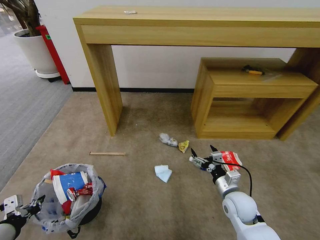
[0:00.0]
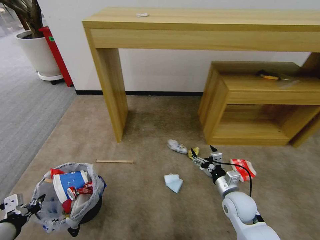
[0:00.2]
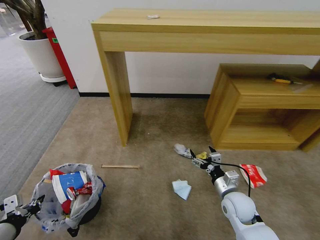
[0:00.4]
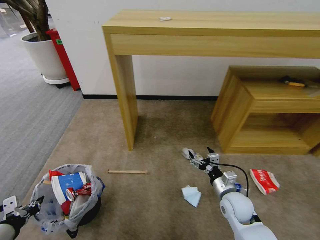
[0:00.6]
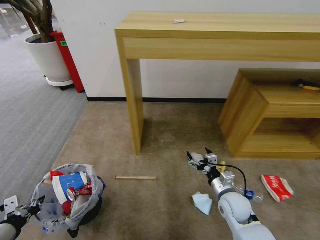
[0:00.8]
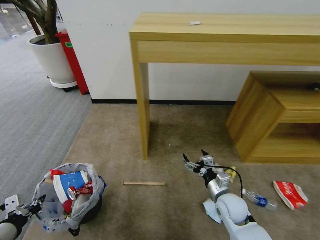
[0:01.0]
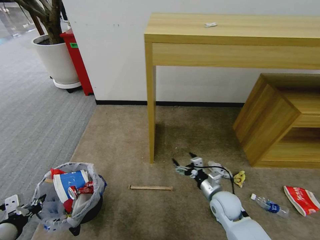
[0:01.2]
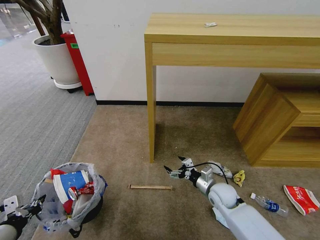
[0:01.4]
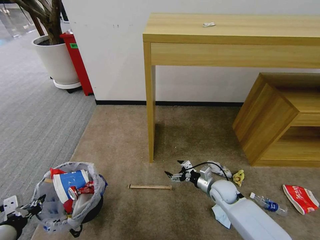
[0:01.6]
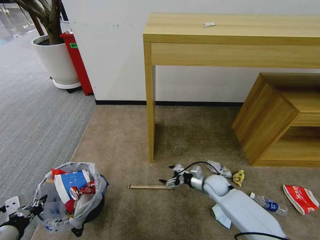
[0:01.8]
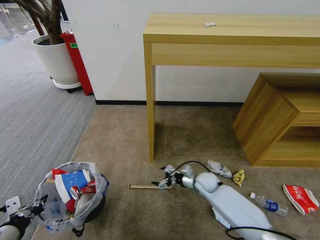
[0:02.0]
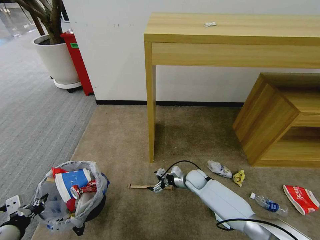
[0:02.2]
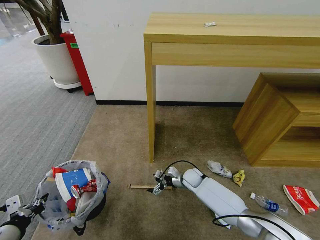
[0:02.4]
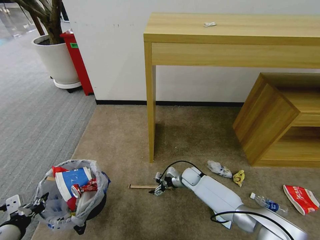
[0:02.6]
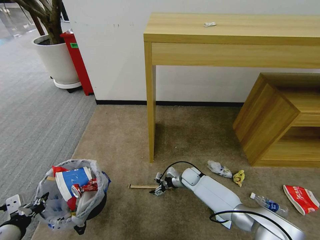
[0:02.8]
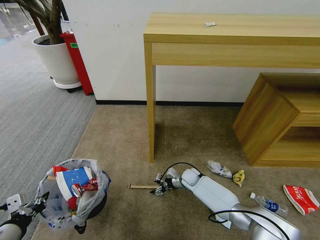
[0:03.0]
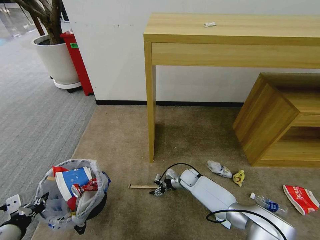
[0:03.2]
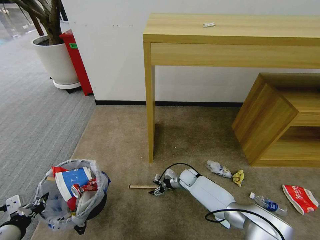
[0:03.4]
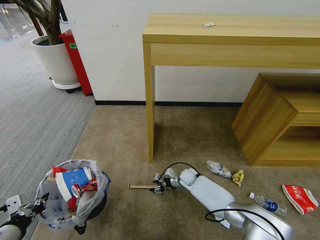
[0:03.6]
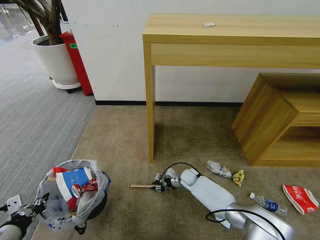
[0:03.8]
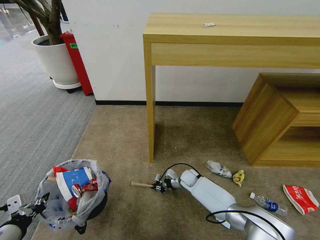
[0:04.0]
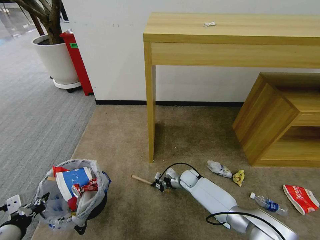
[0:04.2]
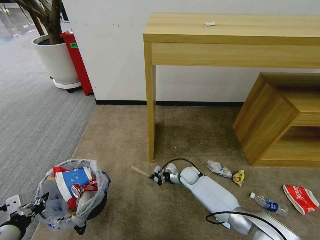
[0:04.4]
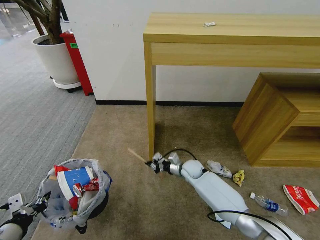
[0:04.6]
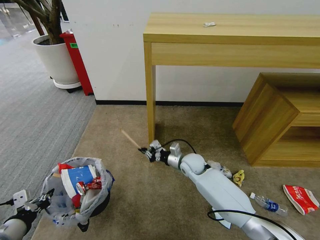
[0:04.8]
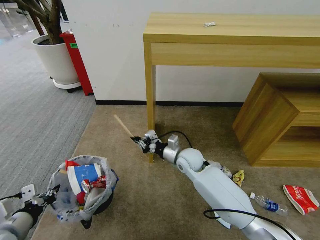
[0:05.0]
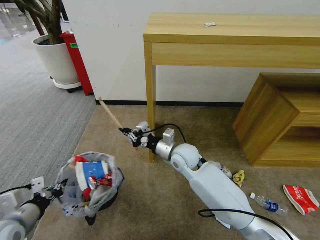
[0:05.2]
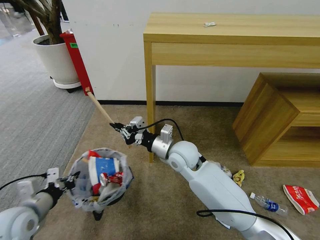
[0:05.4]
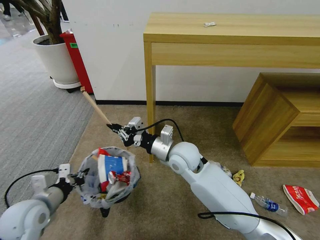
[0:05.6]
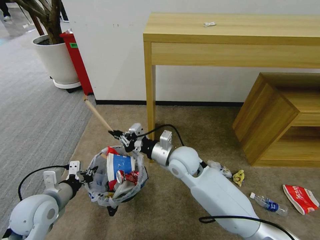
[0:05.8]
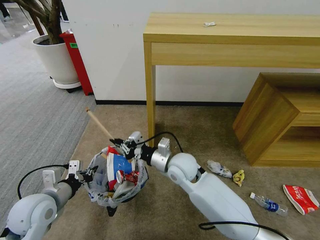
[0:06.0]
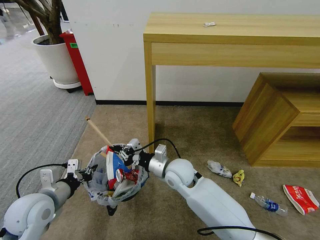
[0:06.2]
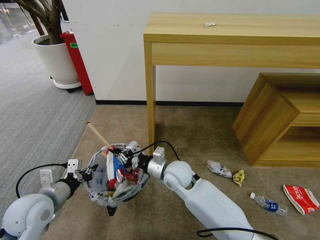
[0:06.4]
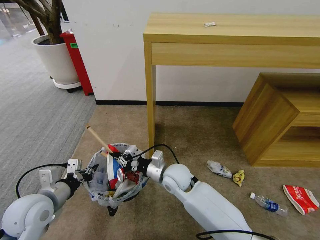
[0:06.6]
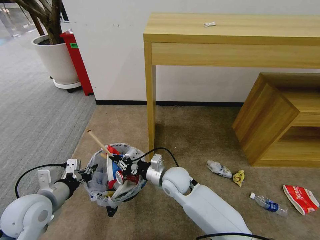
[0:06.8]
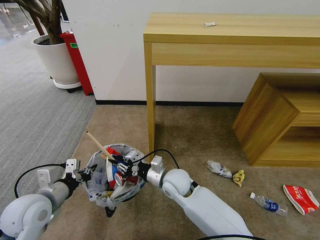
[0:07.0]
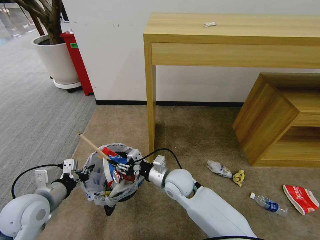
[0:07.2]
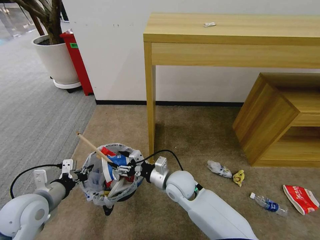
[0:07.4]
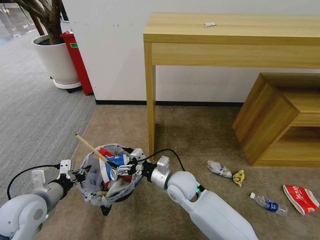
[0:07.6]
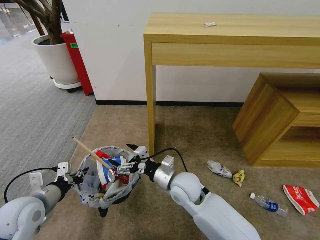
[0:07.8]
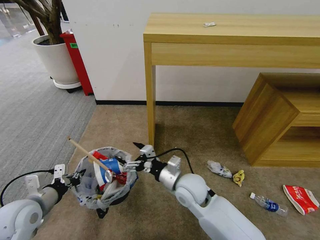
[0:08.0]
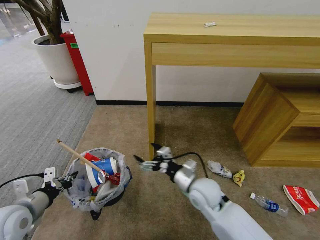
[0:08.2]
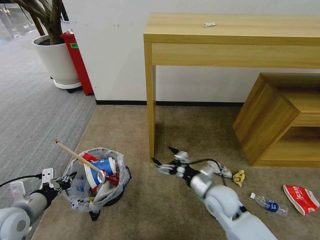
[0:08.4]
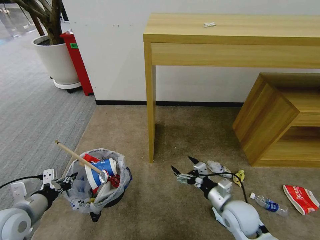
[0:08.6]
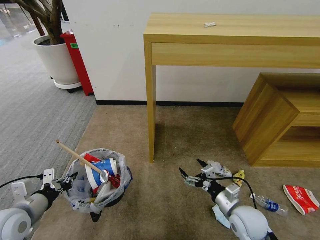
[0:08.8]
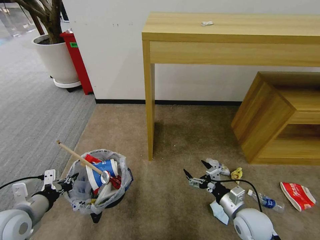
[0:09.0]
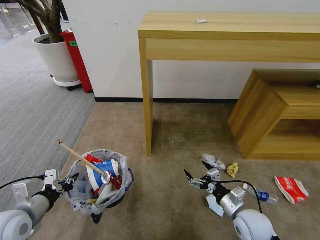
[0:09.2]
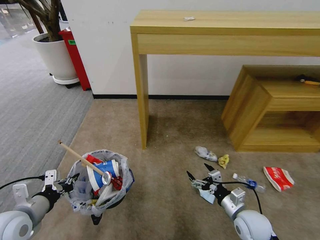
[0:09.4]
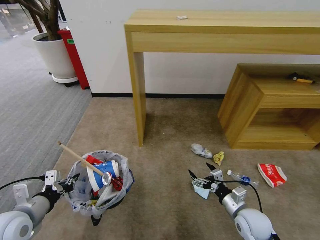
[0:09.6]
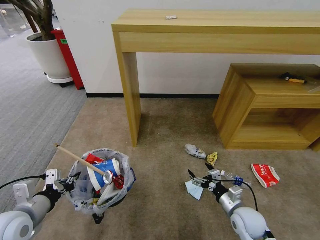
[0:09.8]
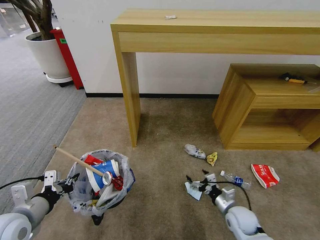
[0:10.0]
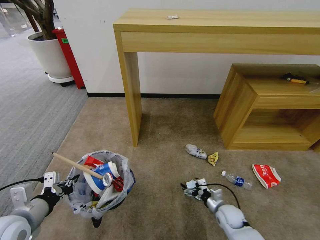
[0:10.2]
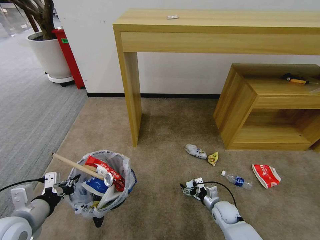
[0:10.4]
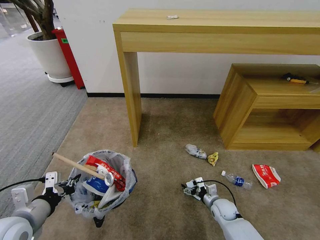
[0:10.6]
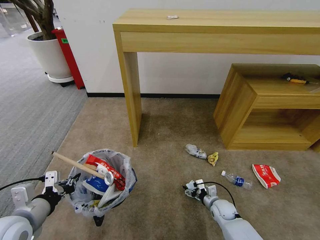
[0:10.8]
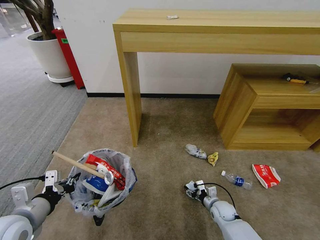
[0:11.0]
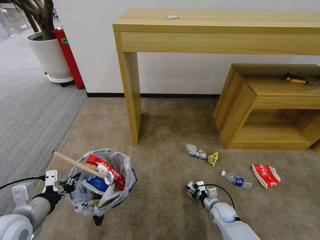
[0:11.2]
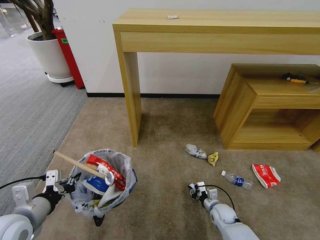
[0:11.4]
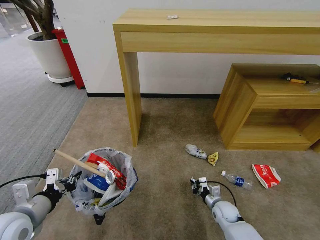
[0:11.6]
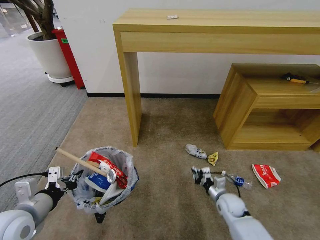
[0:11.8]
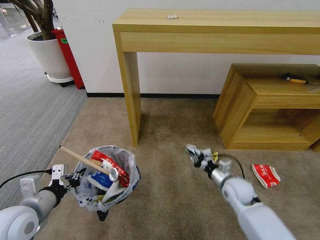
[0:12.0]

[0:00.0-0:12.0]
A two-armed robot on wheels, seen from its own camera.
Task of the whole recording: Pick up the trash bin and place the garbage on the floor into it.
0:00.0 to 0:01.6: The right gripper moves forward and downward, about 10 cm.
0:01.6 to 0:03.0: The right gripper moves to the left, forward and downward, about 15 cm.
0:03.0 to 0:04.4: The right gripper closes its fingers.
0:04.4 to 0:06.0: The left gripper goes roughly 15 cm forward and to the right, while the right gripper heads upward, covering roughly 25 cm.
0:06.0 to 0:07.6: The right gripper ends up some 5 cm from where it was, and opens.
0:07.6 to 0:09.0: The right gripper heads to the right and backward, covering about 25 cm.
0:09.0 to 0:10.4: The right gripper goes roughly 15 cm downward and forward.
0:10.4 to 0:12.0: The right gripper shifts approximately 15 cm upward, and closes its fingers.

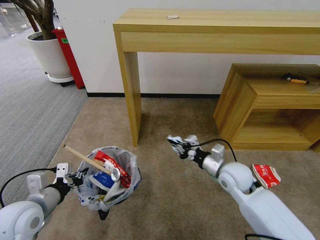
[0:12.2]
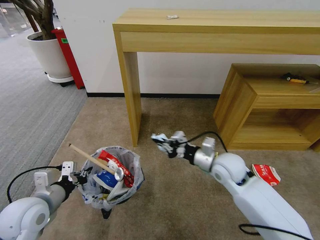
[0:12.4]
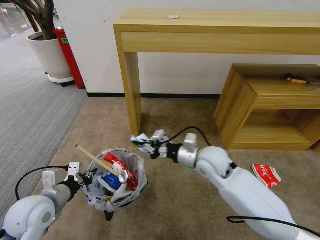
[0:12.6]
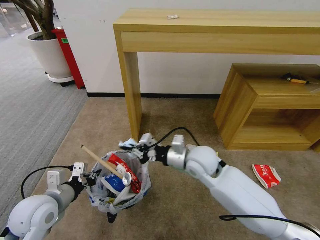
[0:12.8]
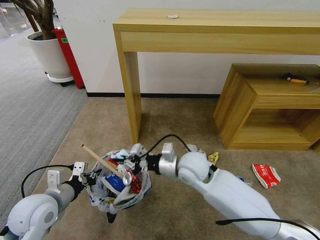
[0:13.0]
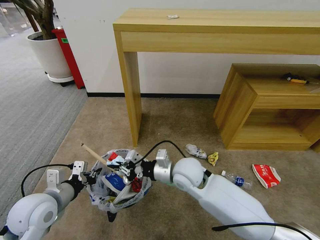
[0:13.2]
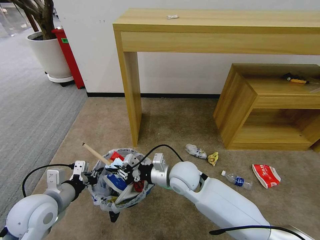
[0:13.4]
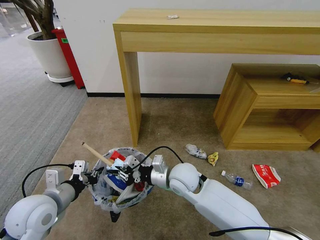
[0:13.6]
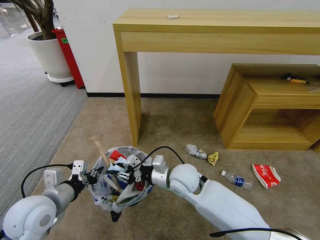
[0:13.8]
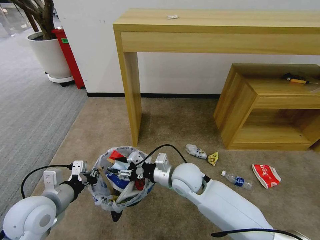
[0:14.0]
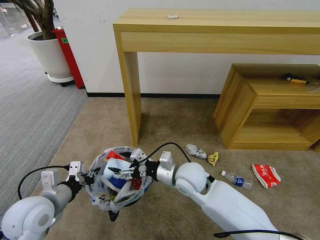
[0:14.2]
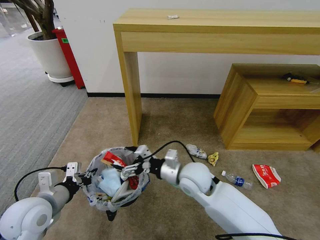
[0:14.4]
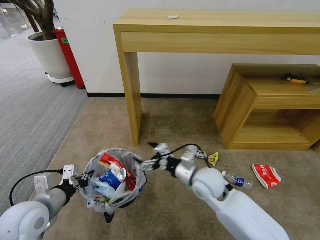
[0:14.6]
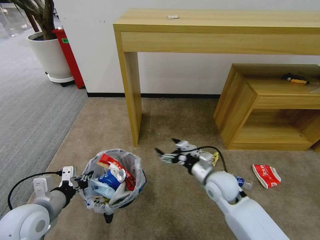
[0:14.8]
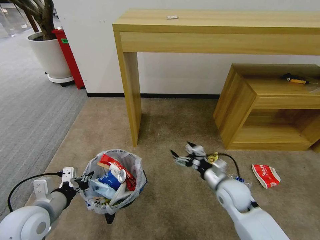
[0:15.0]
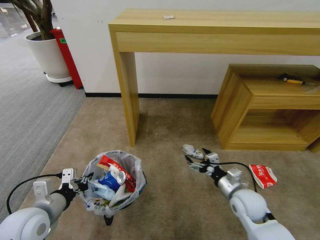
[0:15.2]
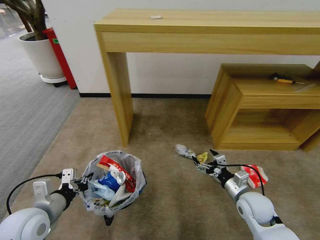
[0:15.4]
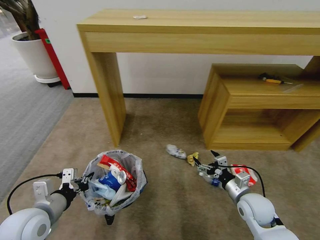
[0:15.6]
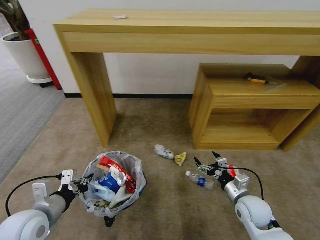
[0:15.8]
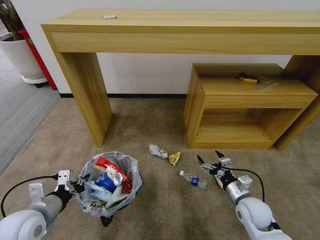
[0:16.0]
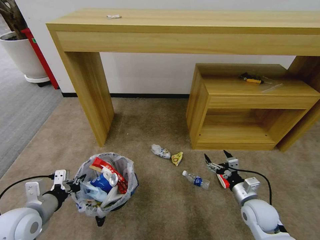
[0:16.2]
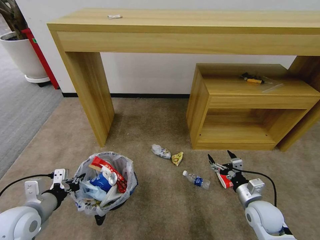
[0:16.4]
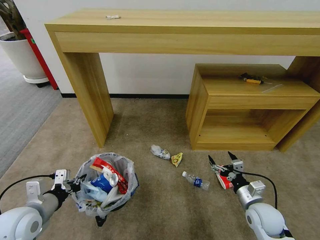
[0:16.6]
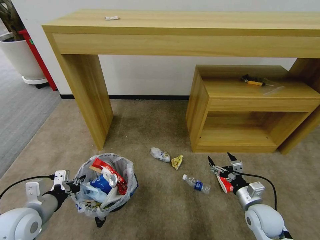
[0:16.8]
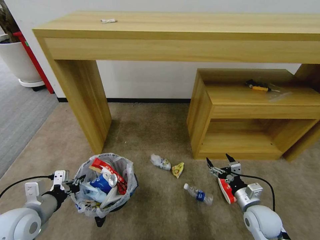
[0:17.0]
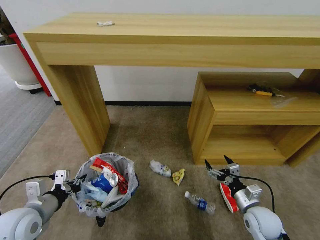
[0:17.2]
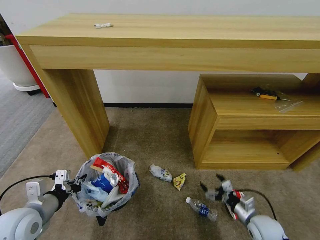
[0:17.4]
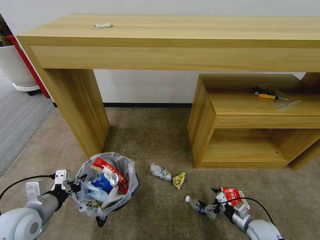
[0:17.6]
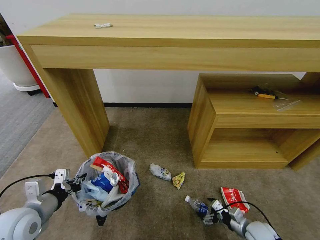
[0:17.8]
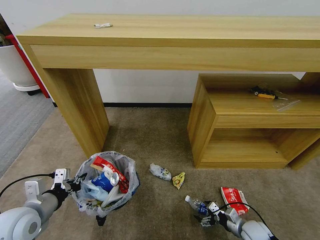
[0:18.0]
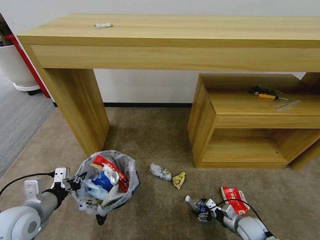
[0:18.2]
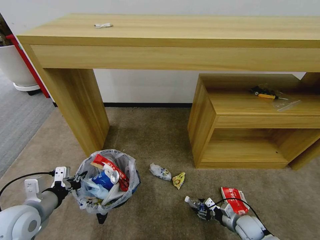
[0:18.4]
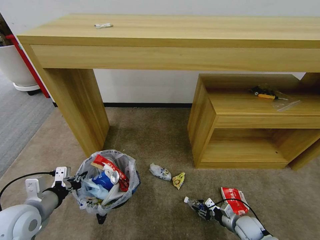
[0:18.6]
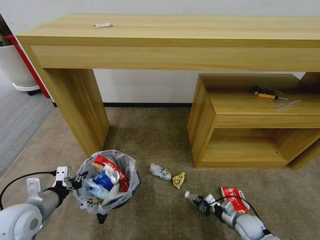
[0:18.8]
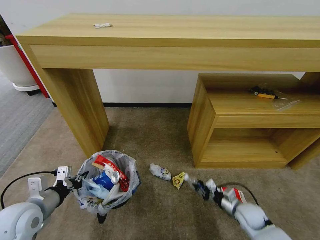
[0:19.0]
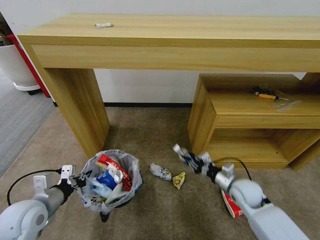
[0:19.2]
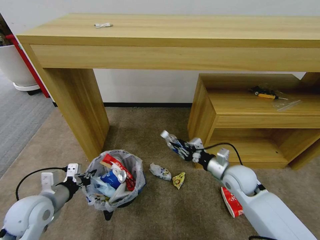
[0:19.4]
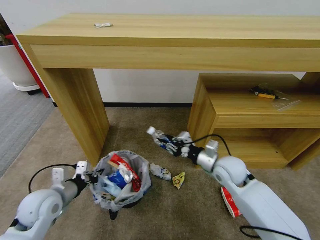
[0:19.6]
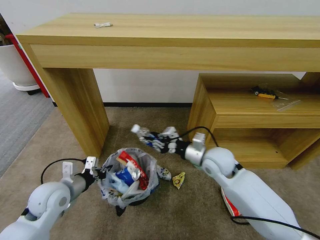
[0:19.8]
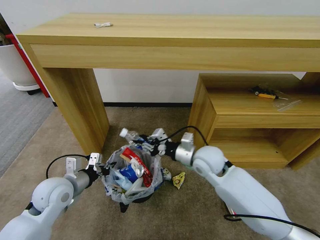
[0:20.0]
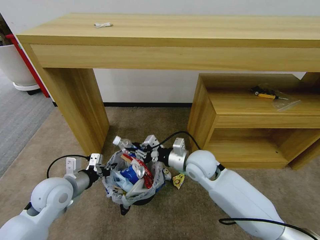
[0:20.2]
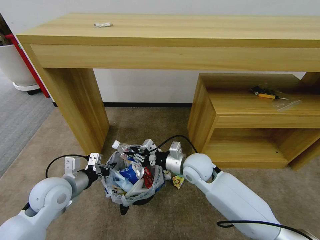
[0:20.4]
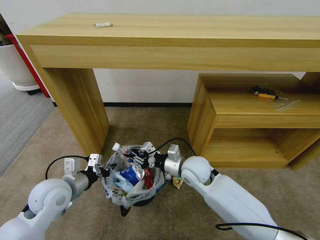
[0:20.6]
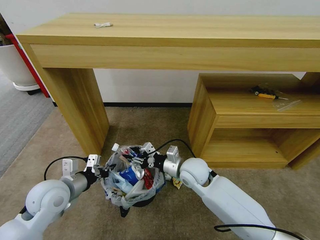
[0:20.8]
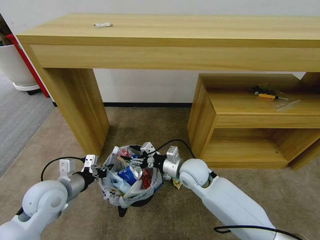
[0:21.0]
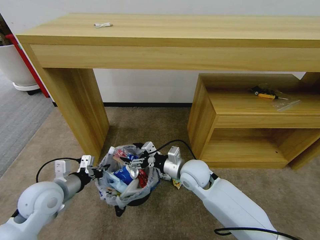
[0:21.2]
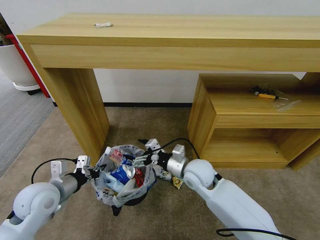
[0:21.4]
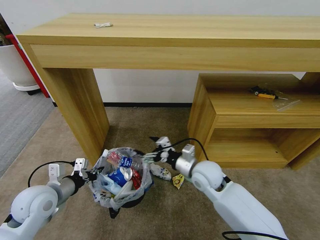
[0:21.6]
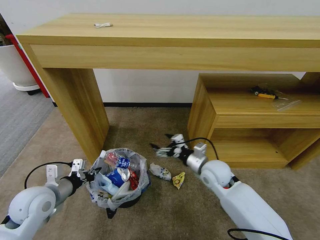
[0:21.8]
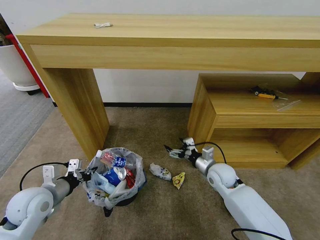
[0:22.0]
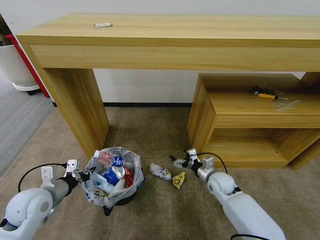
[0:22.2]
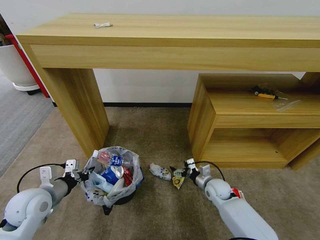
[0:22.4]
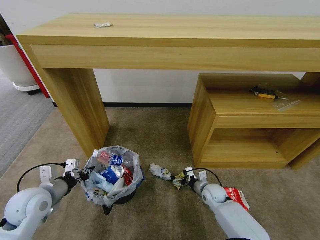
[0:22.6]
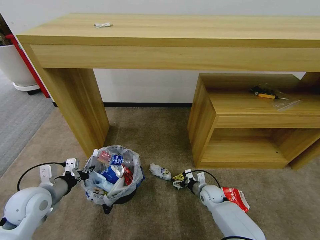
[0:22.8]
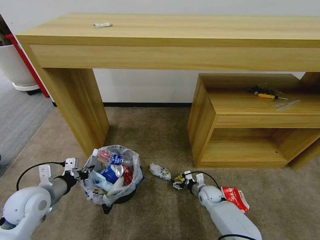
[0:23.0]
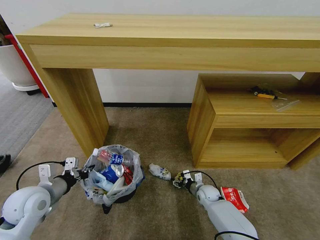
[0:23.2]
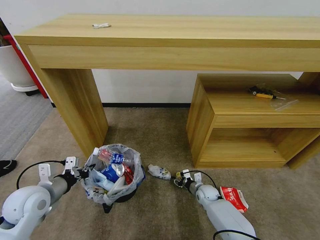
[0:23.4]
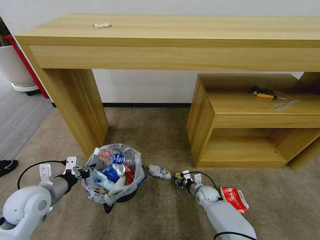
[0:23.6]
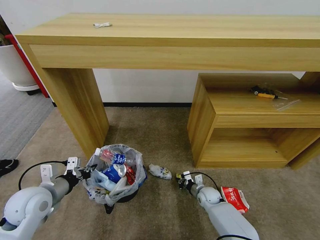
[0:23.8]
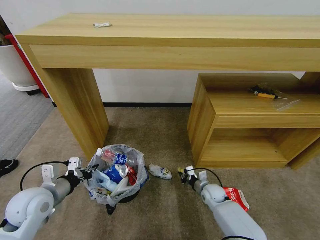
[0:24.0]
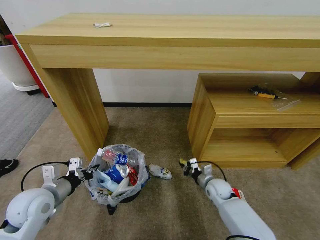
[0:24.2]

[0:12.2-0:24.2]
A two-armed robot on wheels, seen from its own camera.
Task of the whole recording: Pick up the trash bin and place the garbage on the floor into it.
0:12.2 to 0:13.8: The right gripper is displaced to the left by about 15 cm.
0:13.8 to 0:15.2: The right gripper moves to the right, about 20 cm, and opens up.
0:15.2 to 0:16.6: The right gripper shifts approximately 5 cm to the right.
0:16.6 to 0:18.2: The right gripper moves downward, roughly 15 cm.
0:18.2 to 0:19.8: The right gripper goes some 35 cm upward, to the left and forward, and closes up, while the left gripper is displaced forward by about 5 cm.
0:19.8 to 0:21.2: The right gripper shifts approximately 10 cm to the left, and opens up.
0:21.2 to 0:22.6: The right gripper moves downward and to the right, some 25 cm, while the left gripper changes place by approximately 5 cm.
0:22.6 to 0:24.2: The right gripper closes up.
